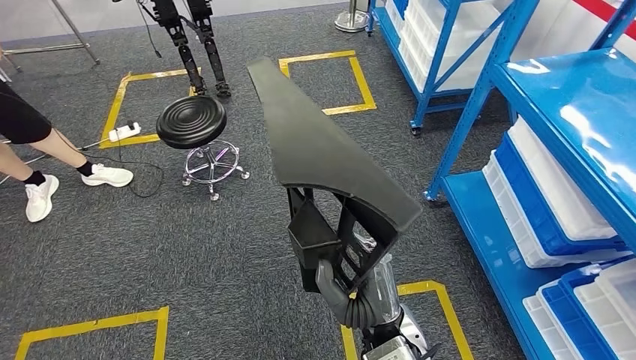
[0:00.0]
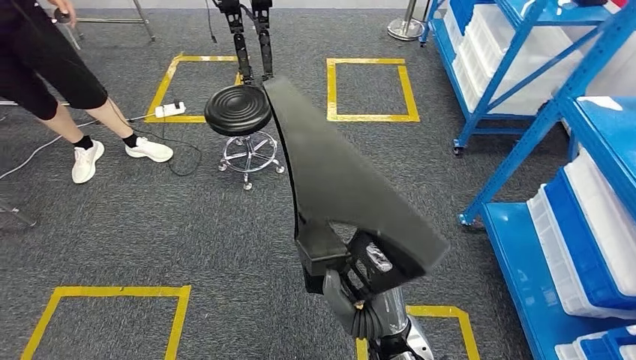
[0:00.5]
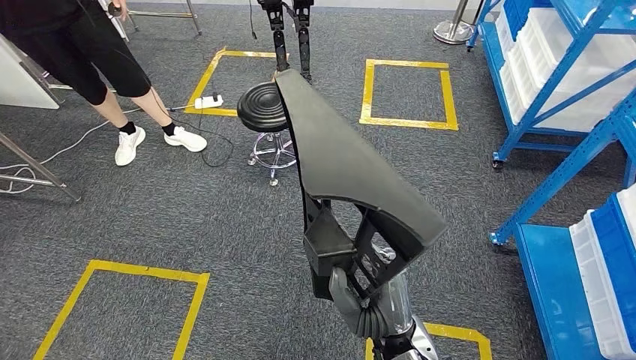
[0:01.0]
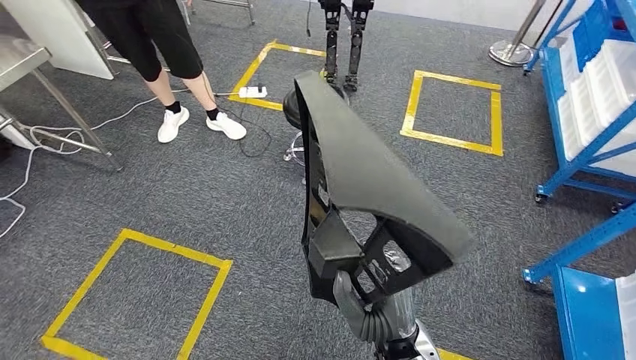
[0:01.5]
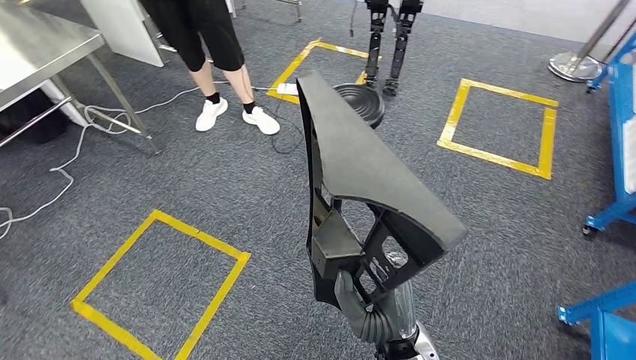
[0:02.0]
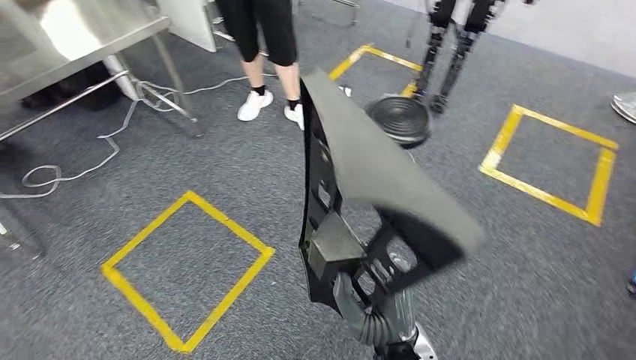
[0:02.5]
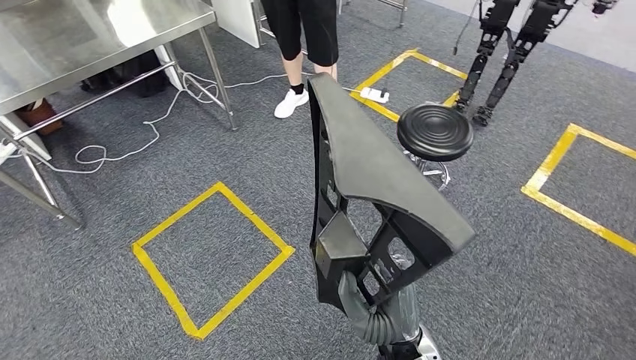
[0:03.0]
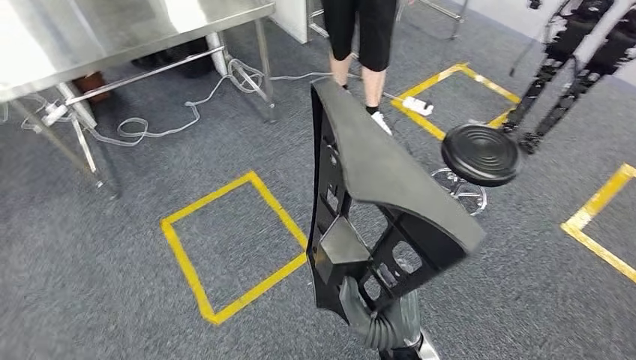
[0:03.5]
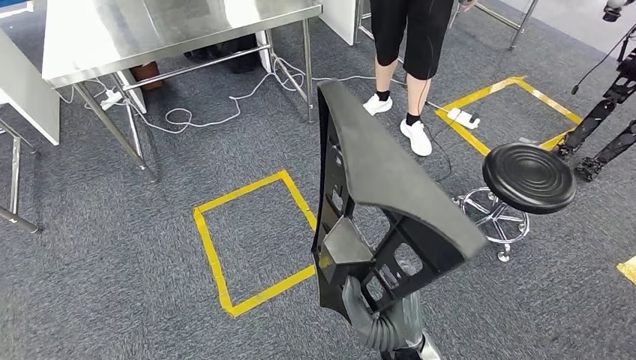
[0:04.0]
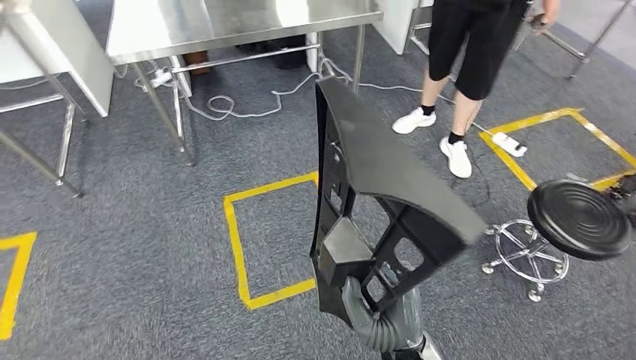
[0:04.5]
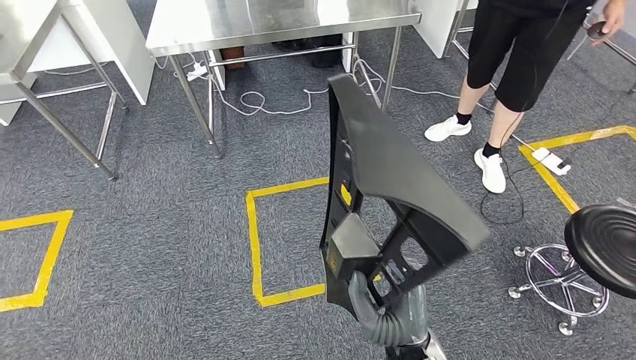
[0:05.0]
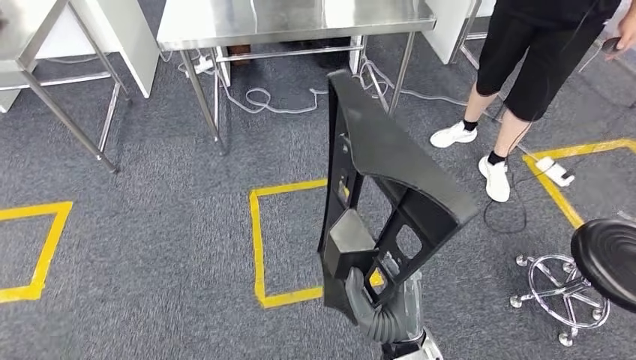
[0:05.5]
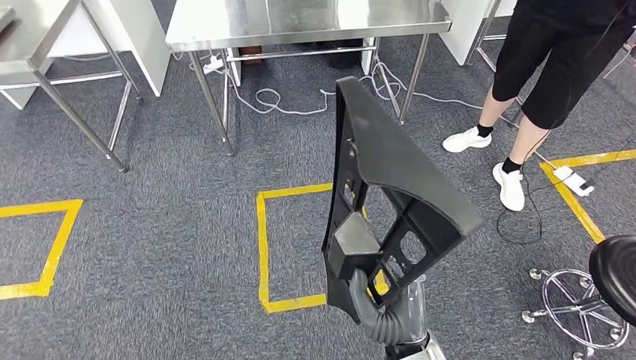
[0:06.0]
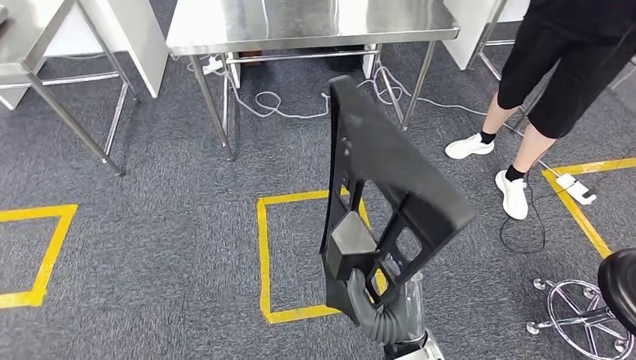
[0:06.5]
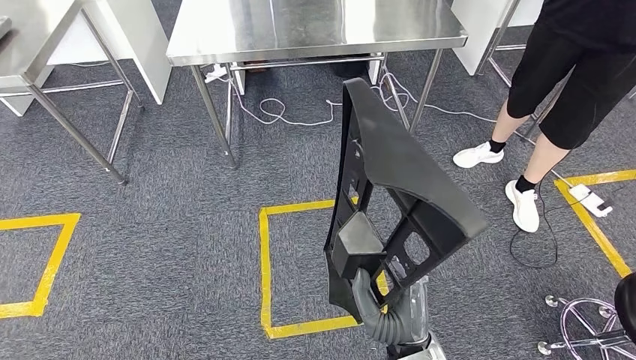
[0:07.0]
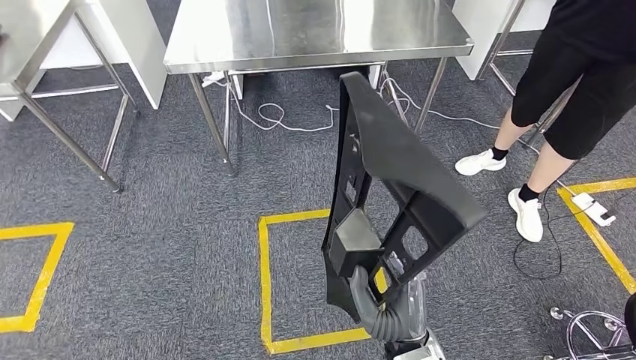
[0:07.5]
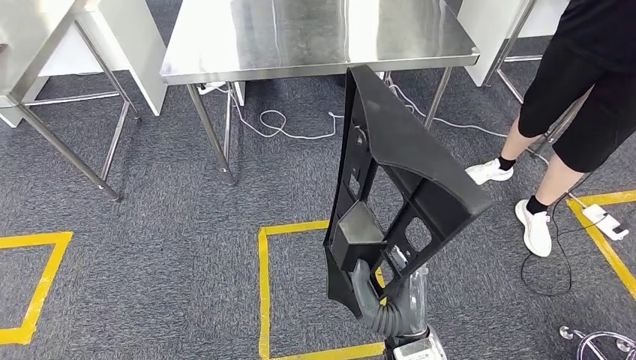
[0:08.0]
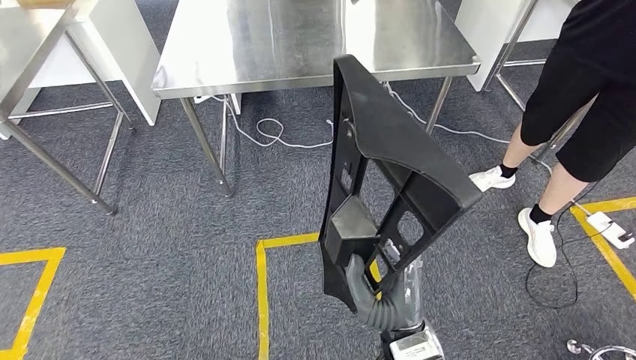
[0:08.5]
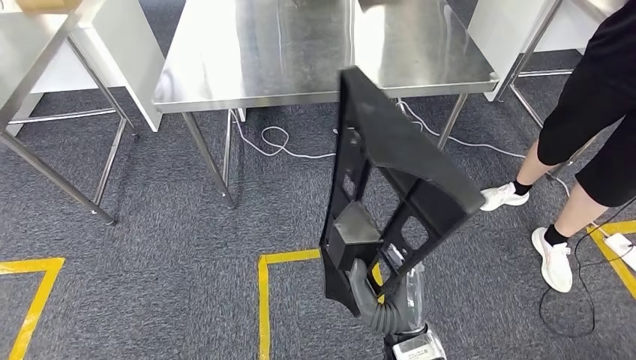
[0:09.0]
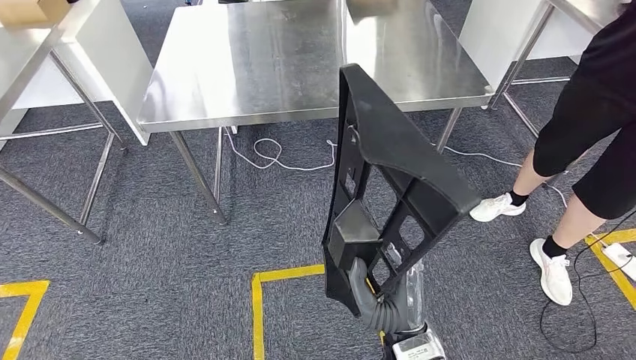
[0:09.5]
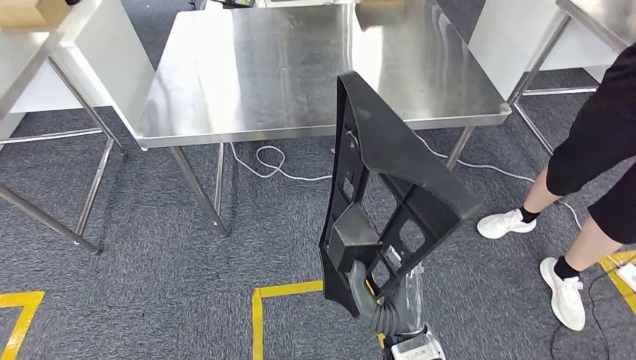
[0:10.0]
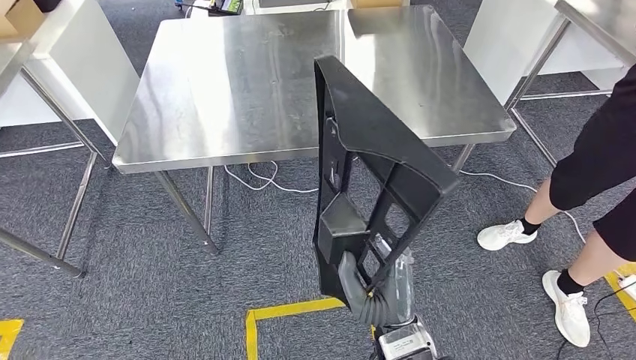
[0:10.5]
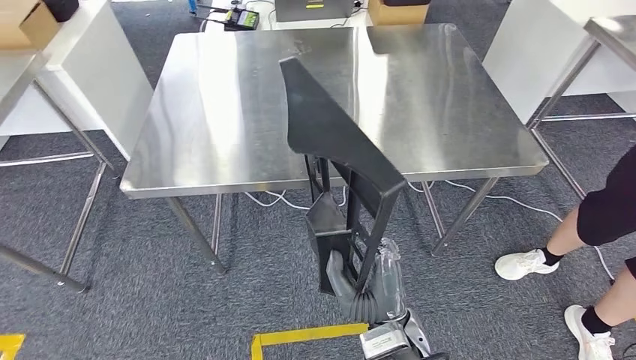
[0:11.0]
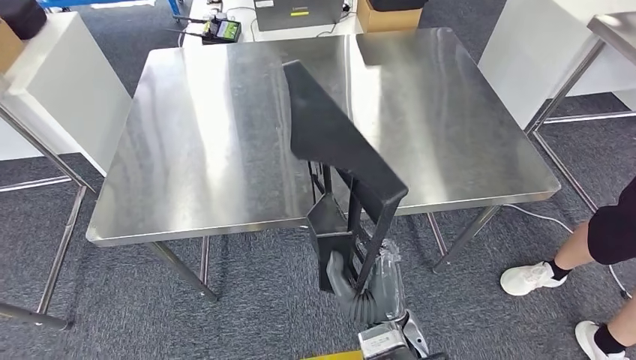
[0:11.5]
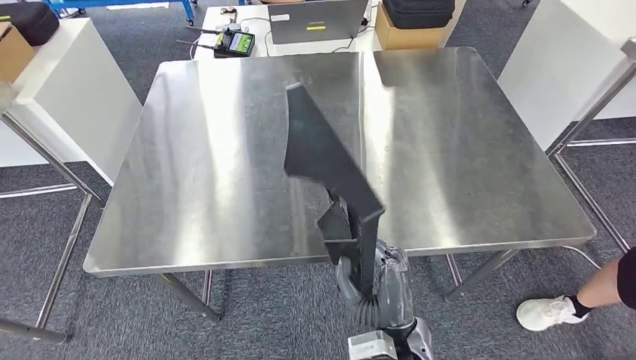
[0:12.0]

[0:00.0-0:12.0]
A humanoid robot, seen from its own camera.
Step, 0:00.0 to 0:10.5: Move the large material to the workbench.

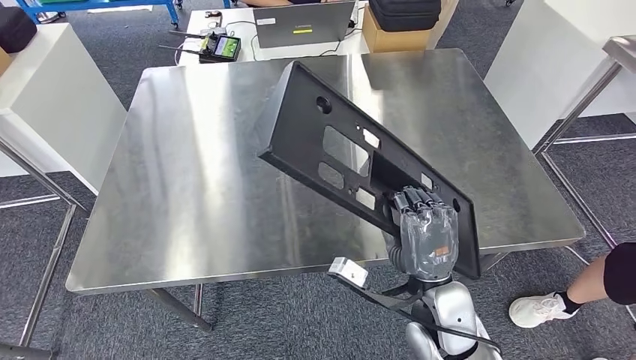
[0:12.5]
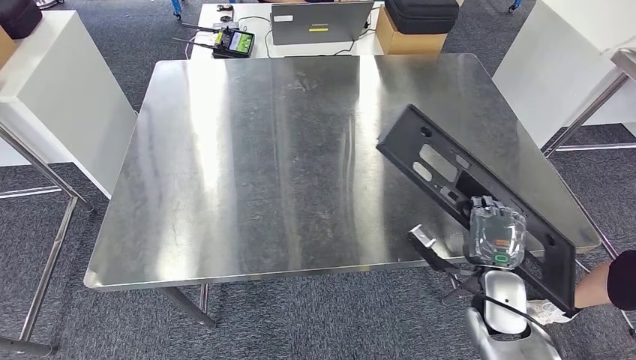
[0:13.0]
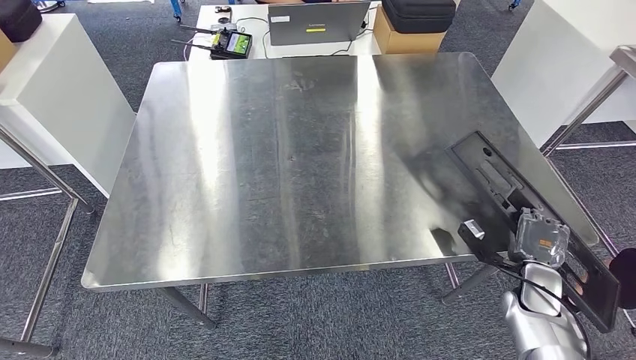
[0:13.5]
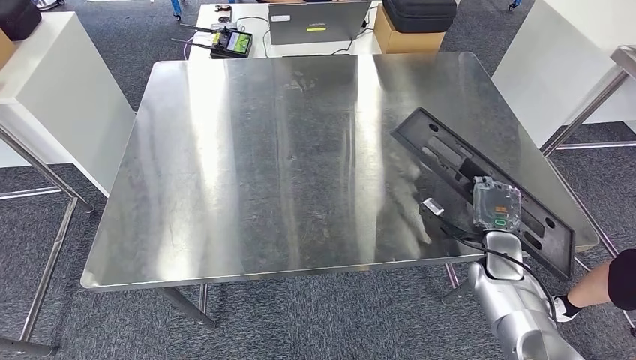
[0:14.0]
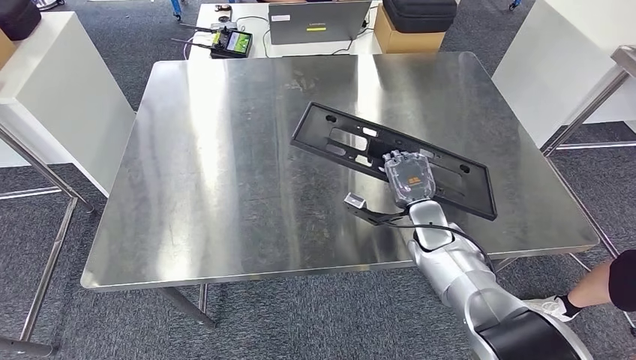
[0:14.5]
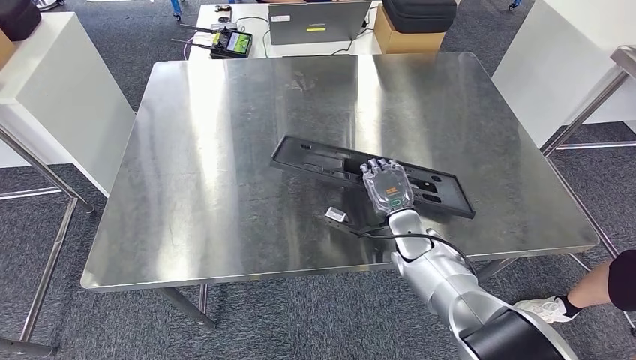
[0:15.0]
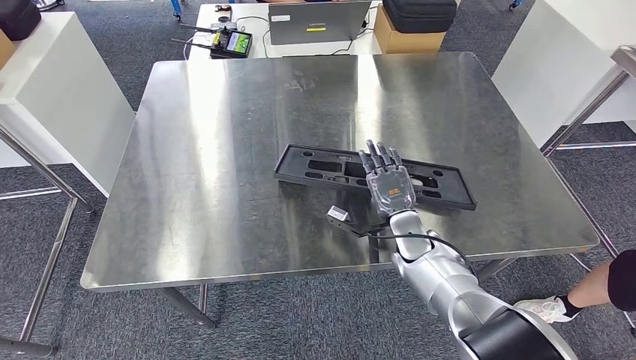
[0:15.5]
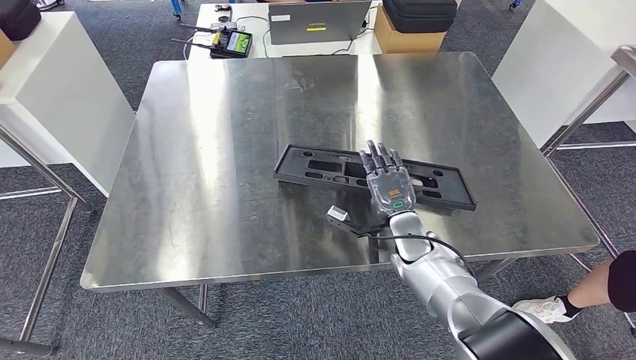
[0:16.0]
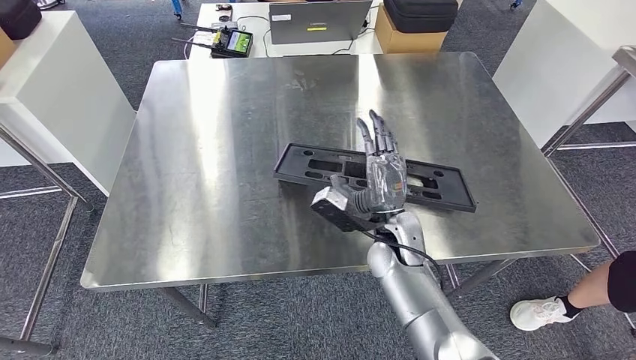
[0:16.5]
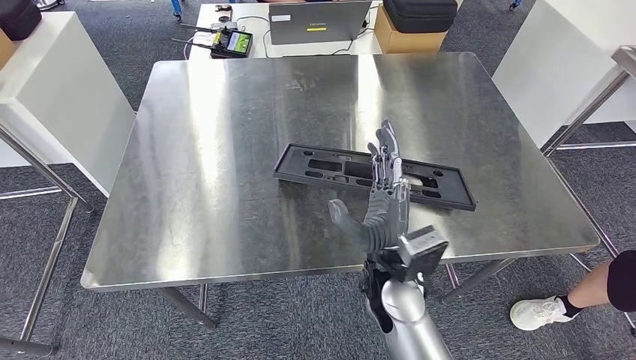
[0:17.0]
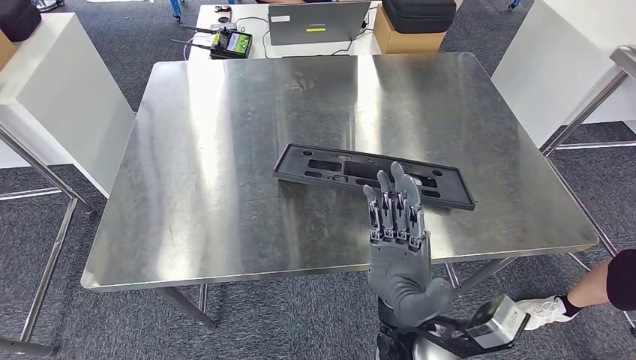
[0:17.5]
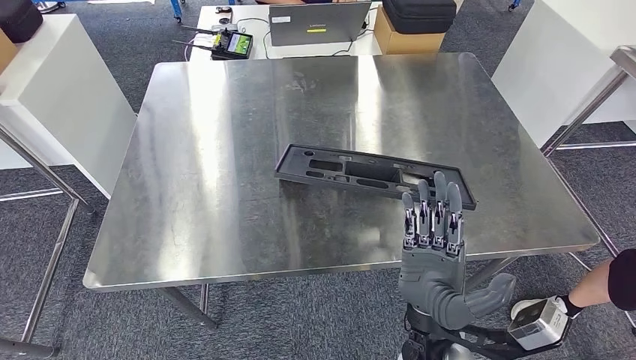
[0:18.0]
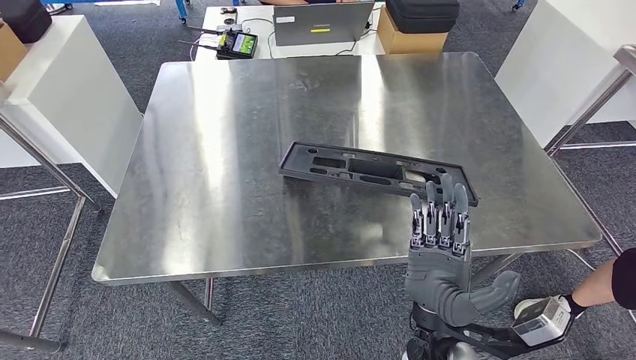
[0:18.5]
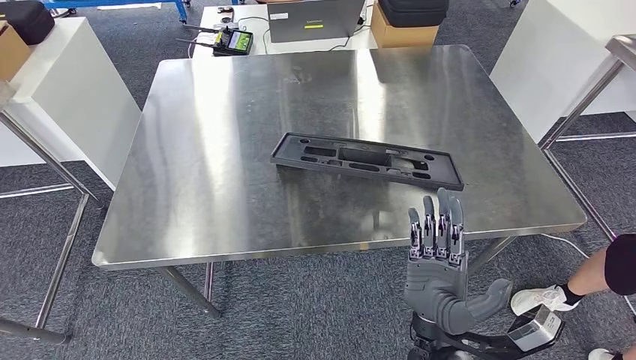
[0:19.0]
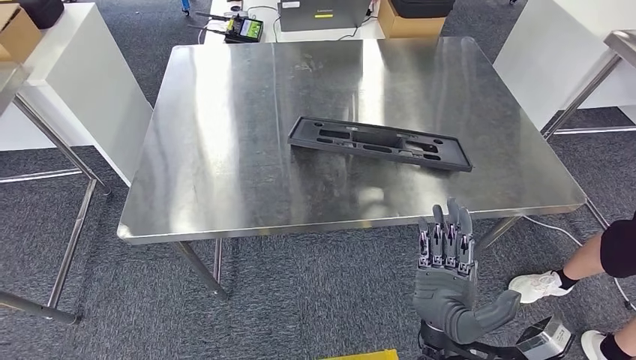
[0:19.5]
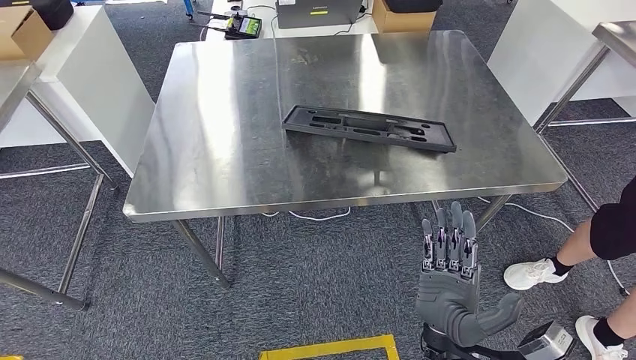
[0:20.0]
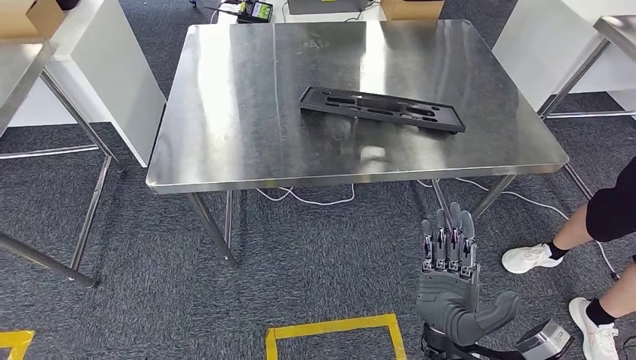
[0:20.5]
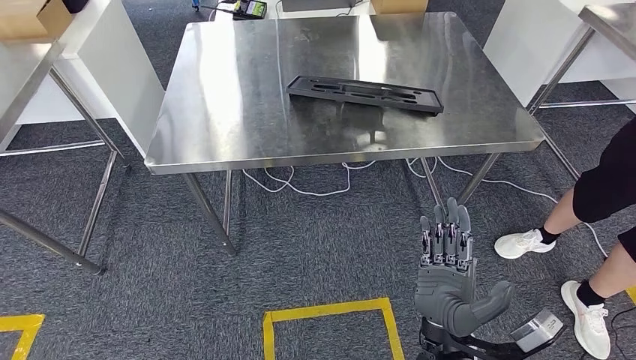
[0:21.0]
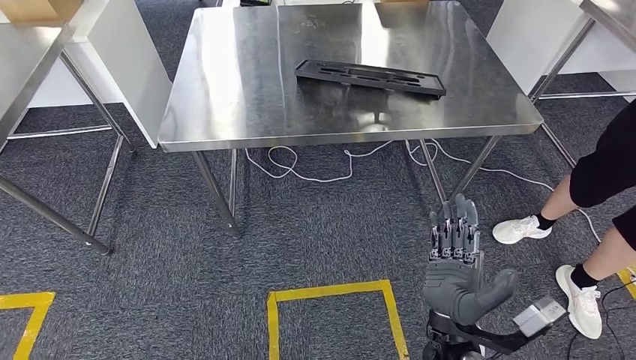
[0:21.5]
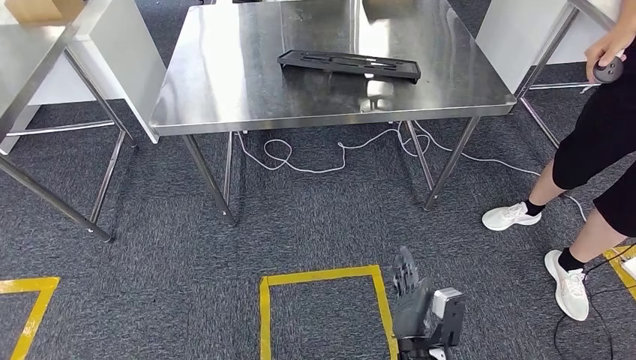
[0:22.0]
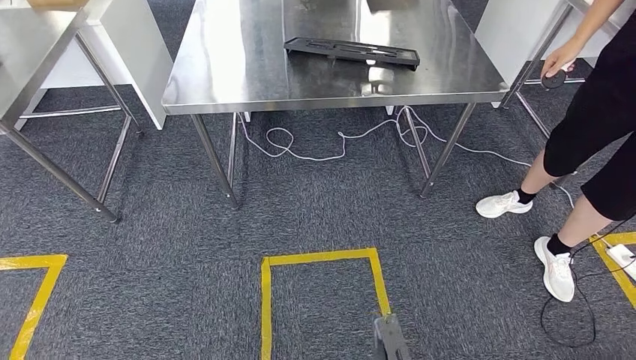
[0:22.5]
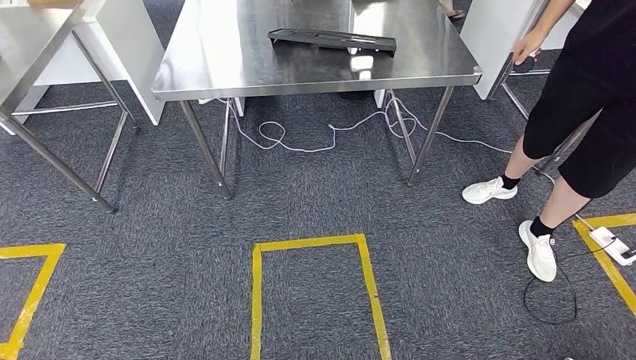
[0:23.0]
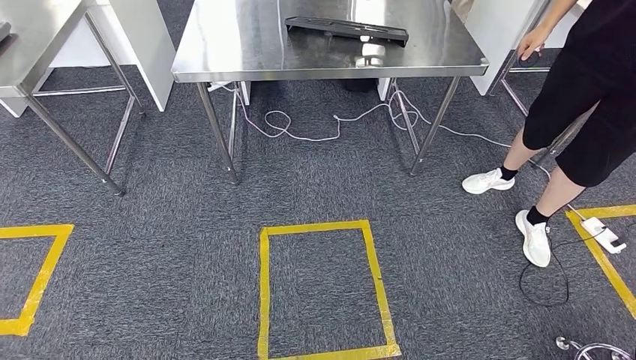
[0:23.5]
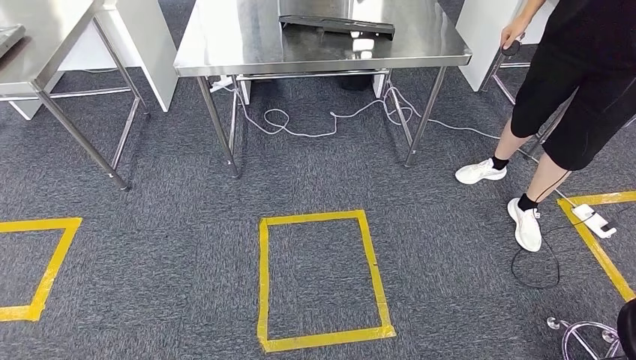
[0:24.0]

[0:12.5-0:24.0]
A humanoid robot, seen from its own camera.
Step, 0:12.5 to 0:22.0: Insert the large material into the corresponding slot on the workbench.
0:14.5 to 0:16.5: The right hand is displaced to the left by some 10 cm.
